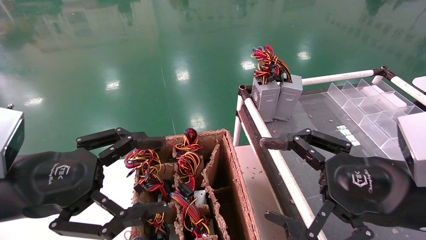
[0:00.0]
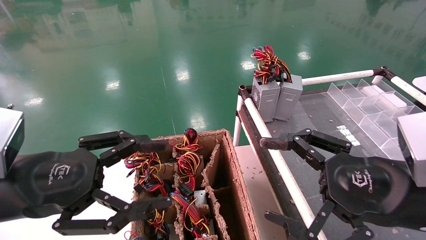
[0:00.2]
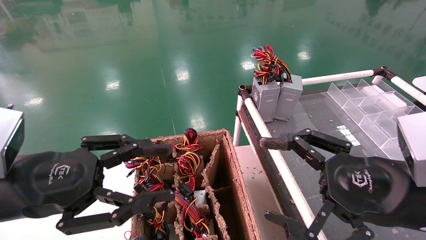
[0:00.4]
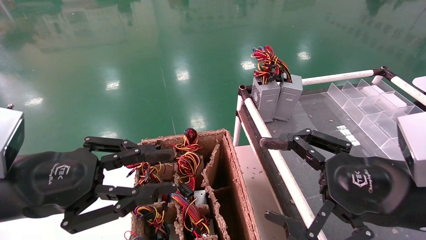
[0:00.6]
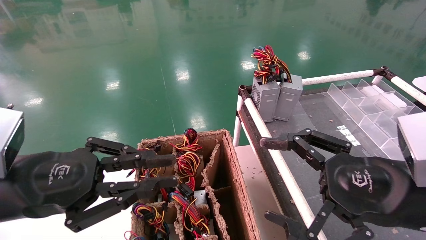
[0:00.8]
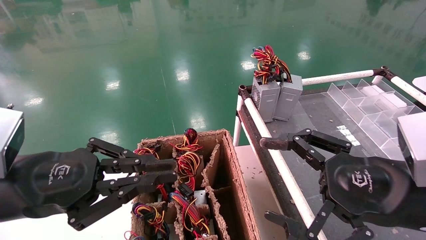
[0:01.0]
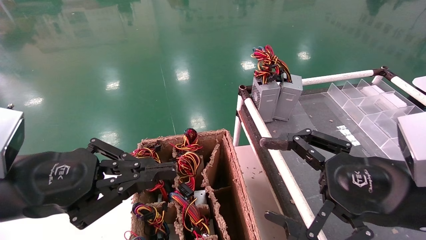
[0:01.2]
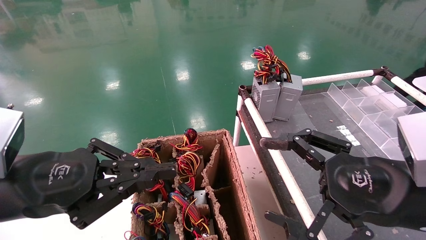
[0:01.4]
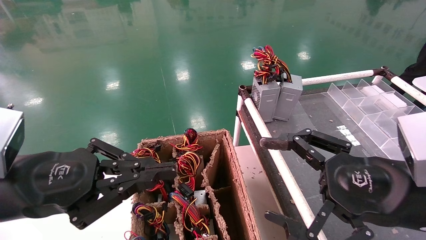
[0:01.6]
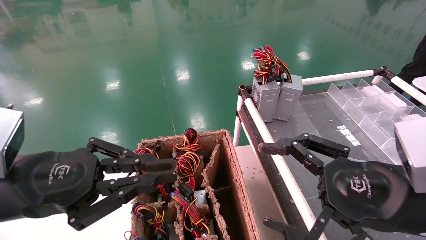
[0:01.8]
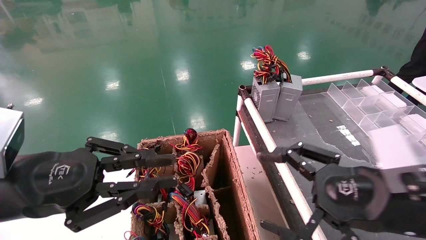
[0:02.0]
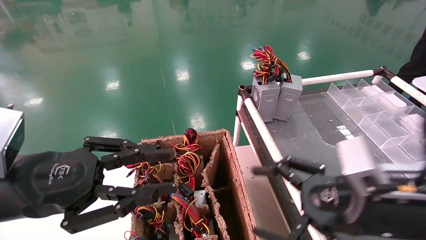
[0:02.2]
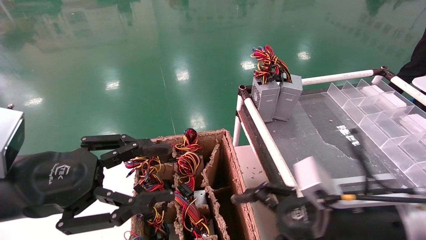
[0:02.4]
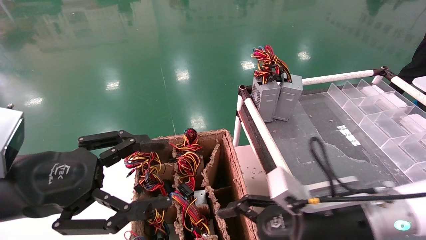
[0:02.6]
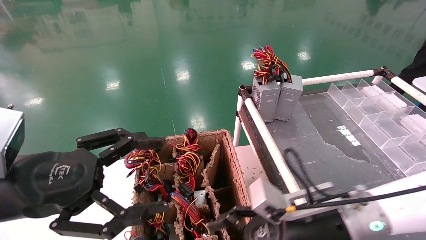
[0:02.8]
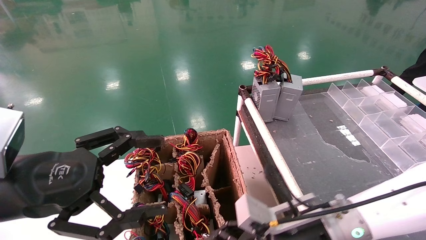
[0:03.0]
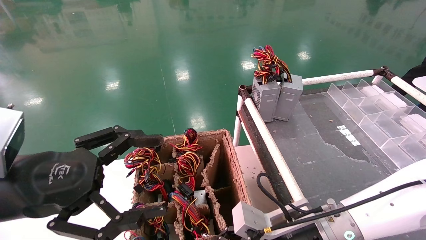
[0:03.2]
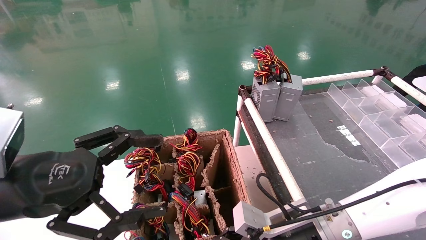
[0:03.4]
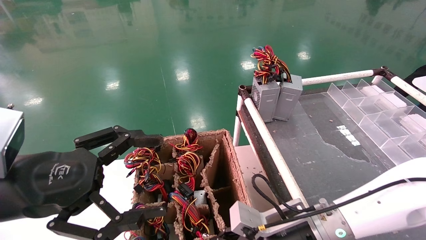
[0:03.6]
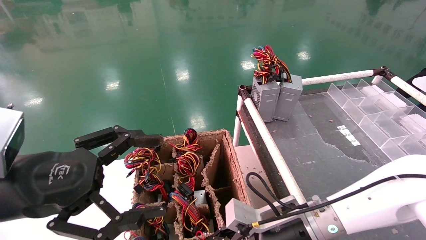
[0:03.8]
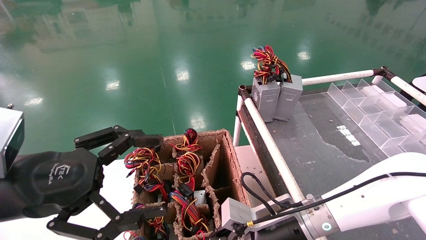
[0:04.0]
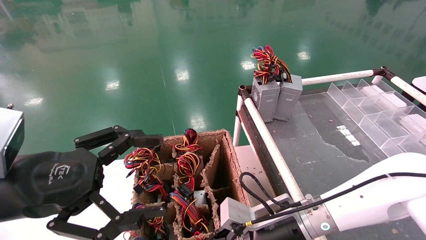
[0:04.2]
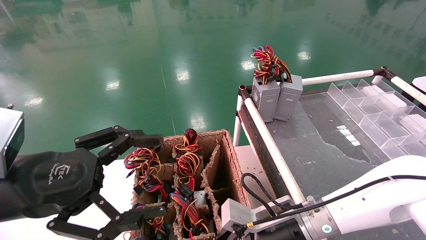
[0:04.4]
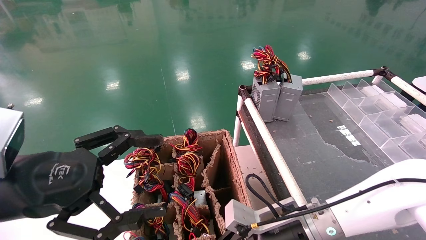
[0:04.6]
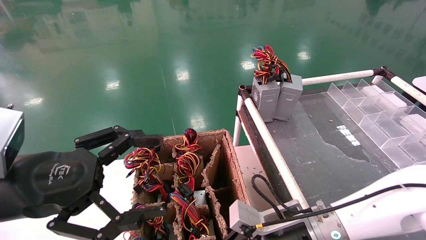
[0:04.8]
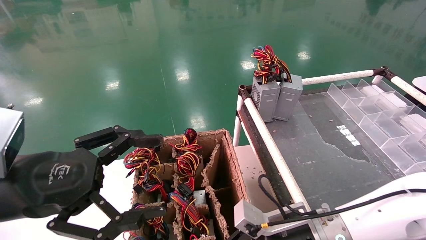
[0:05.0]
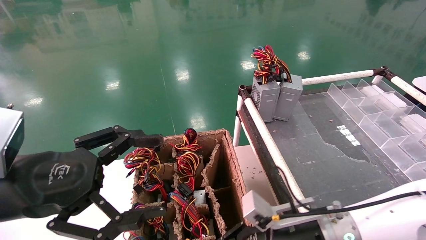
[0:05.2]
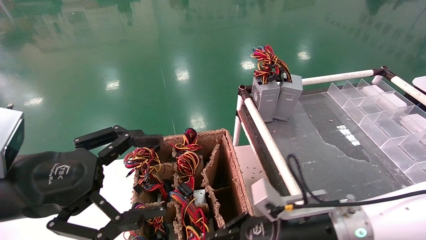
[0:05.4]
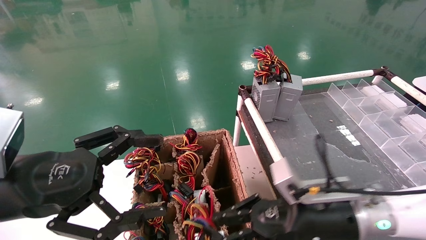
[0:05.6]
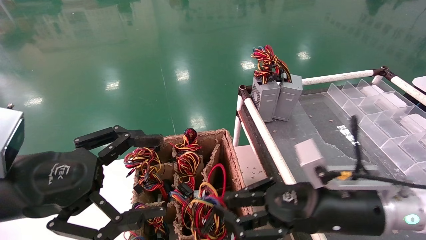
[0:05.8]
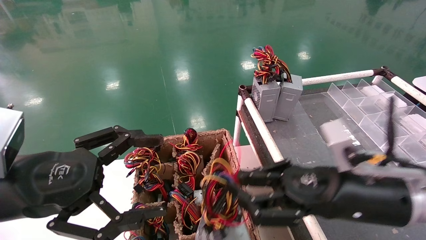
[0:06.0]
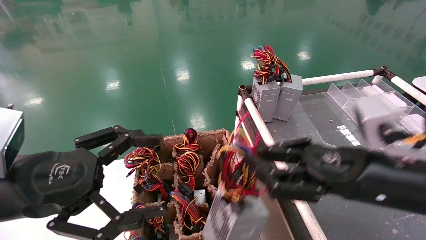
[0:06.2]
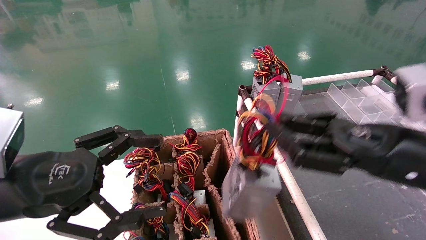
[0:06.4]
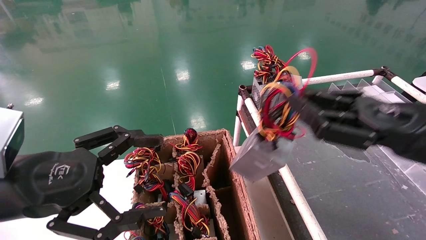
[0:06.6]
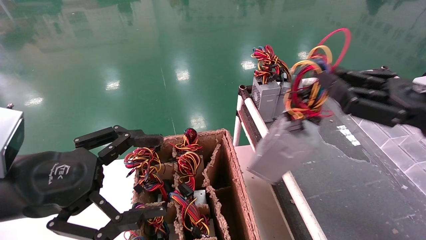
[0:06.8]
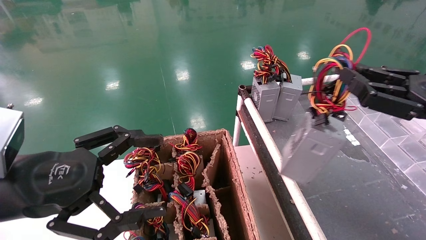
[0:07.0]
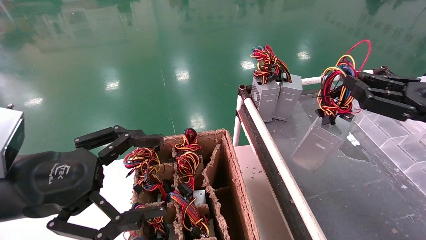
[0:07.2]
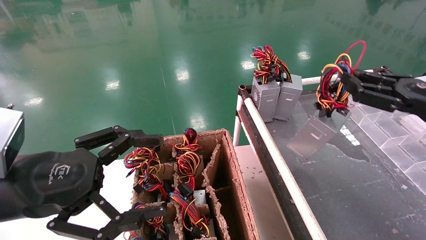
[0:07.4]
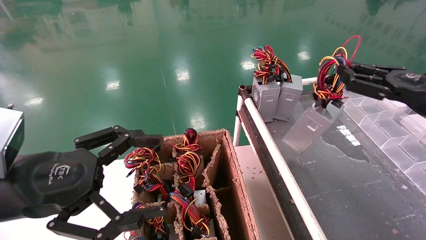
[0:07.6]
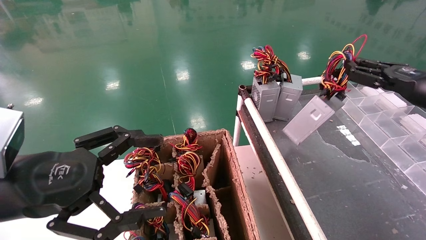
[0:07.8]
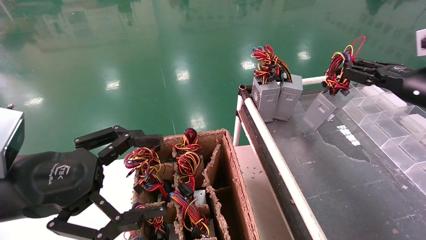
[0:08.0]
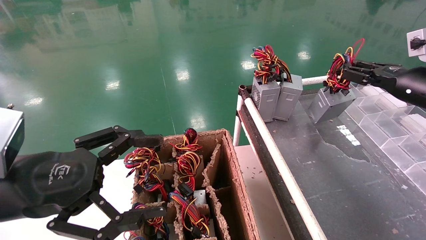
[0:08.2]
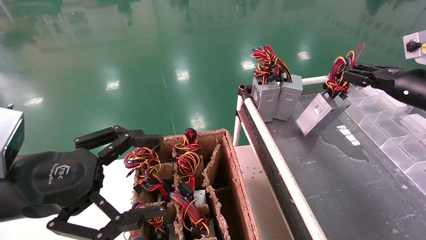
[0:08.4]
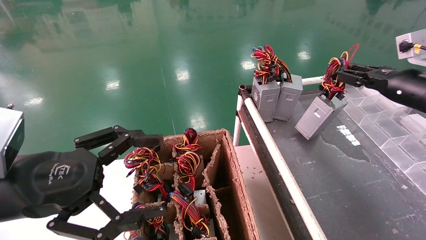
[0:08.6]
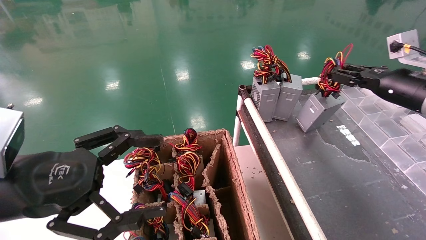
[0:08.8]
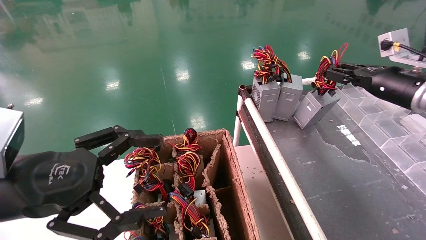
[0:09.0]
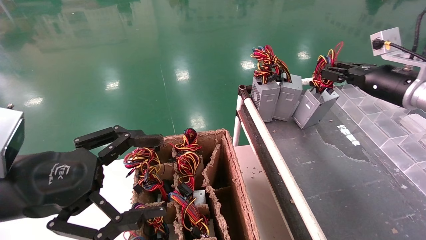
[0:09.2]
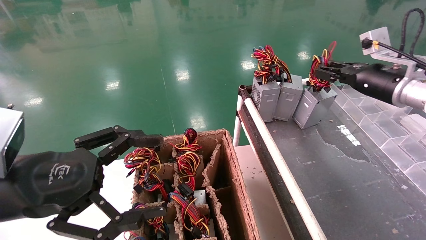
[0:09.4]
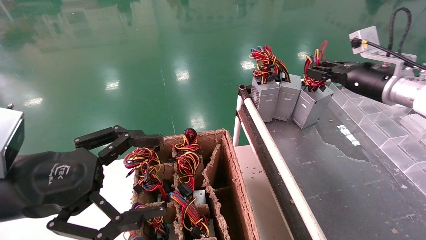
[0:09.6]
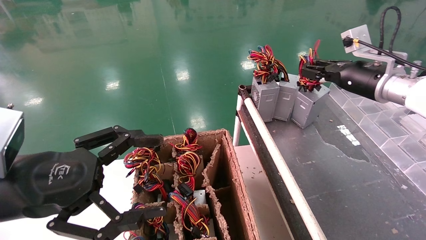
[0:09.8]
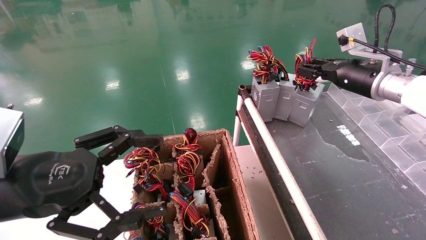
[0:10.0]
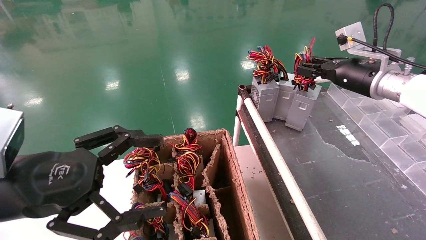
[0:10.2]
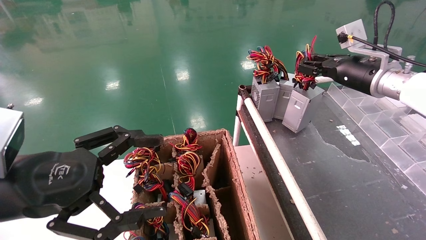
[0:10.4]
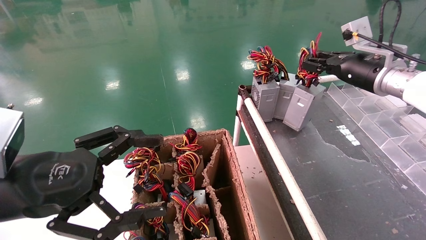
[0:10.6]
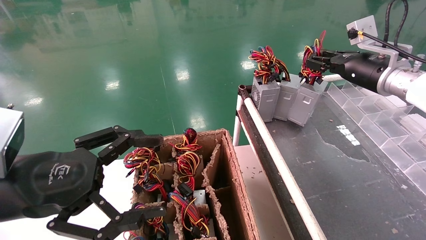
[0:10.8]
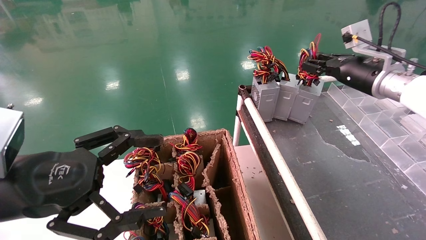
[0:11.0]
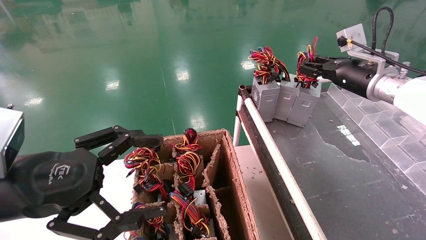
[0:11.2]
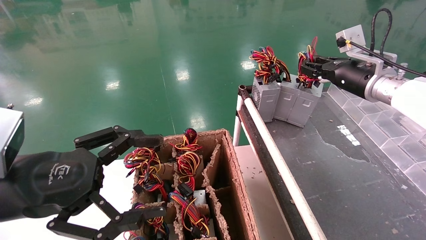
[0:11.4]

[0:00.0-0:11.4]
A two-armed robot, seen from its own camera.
Step, 0:01.4 to 0:04.8: Grab and lift the power supply from the large box.
0:00.0 to 0:01.4: The left gripper closes up.
0:01.4 to 0:02.8: The left gripper opens its fingers; the right gripper heads downward, to the left and forward, covering about 15 cm.
0:02.8 to 0:04.2: The right gripper moves about 5 cm, and closes up.
0:04.2 to 0:05.6: The right gripper goes about 10 cm to the right and upward, and closes.
0:05.6 to 0:07.2: The right gripper heads to the right and upward, covering roughly 25 cm.
0:07.2 to 0:08.6: The right gripper travels forward by roughly 15 cm.
0:08.6 to 0:10.0: The right gripper goes some 10 cm to the left.
0:10.0 to 0:11.4: The grippers make only small movements.

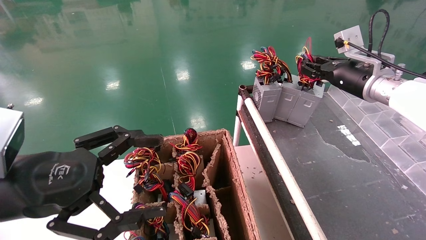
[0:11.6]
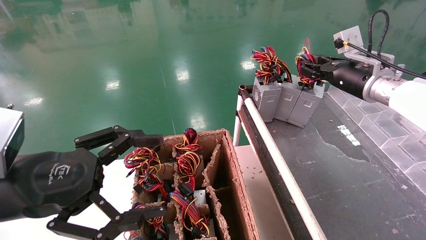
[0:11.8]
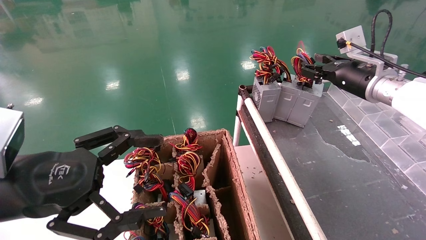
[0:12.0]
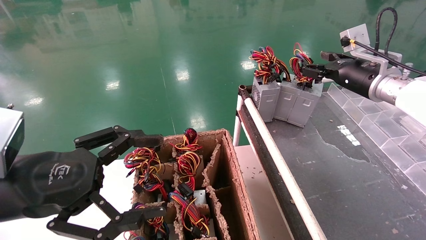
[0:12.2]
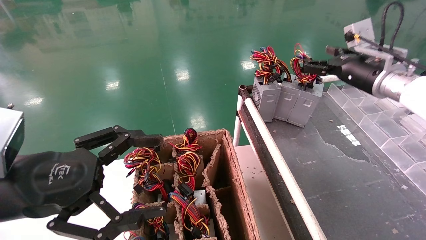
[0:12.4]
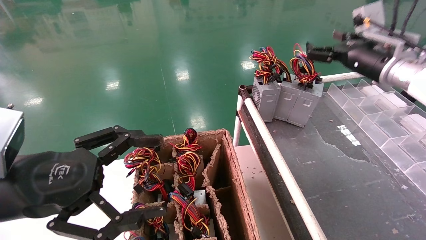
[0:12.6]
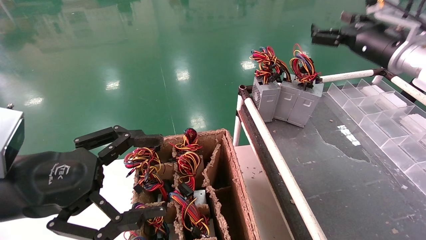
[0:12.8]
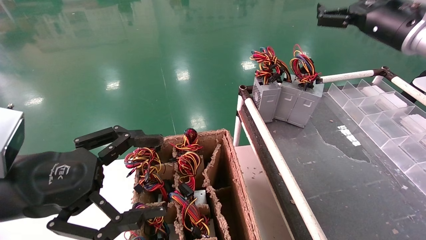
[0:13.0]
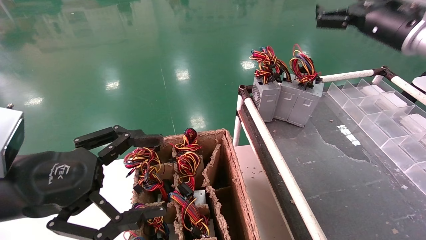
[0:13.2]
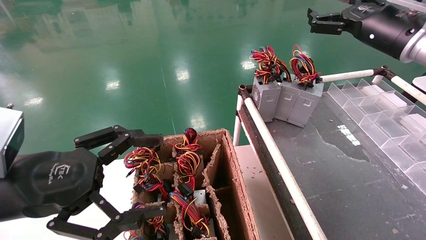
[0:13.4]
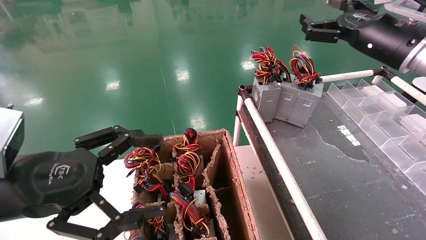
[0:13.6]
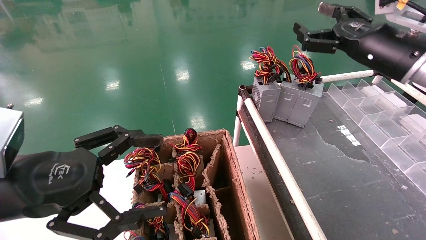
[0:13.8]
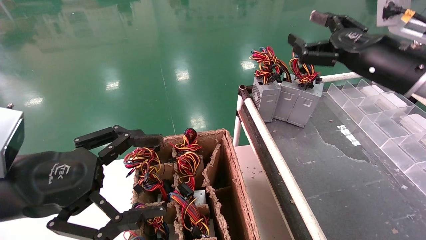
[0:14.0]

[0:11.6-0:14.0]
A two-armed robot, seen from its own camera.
0:11.6 to 0:12.8: The right gripper moves upward, roughly 5 cm, and opens its fingers.
0:12.8 to 0:14.0: The right gripper heads backward, covering about 10 cm.
